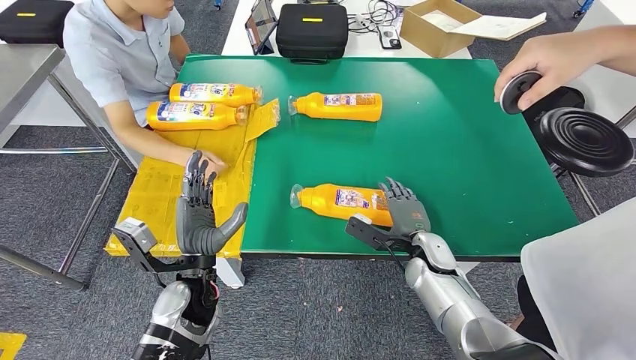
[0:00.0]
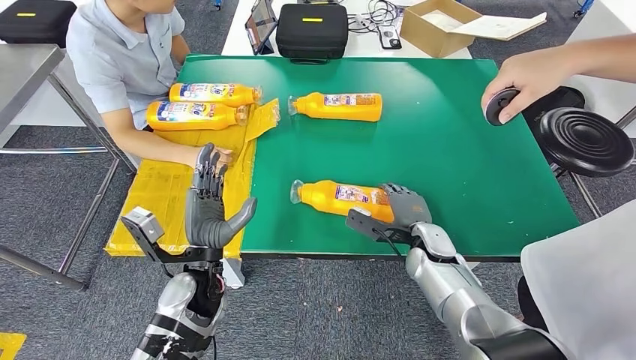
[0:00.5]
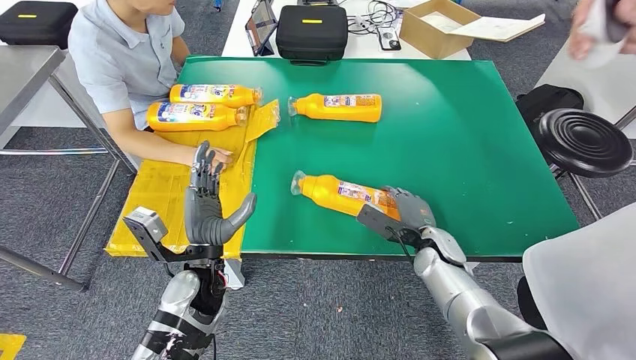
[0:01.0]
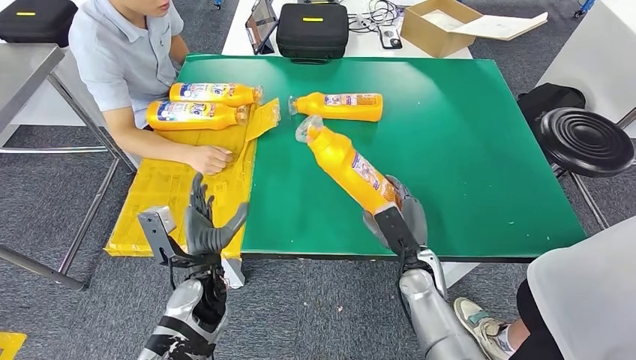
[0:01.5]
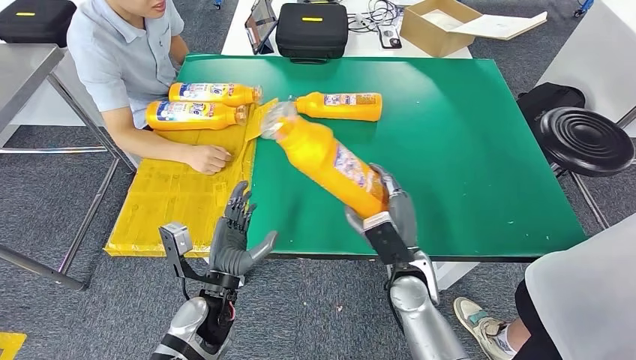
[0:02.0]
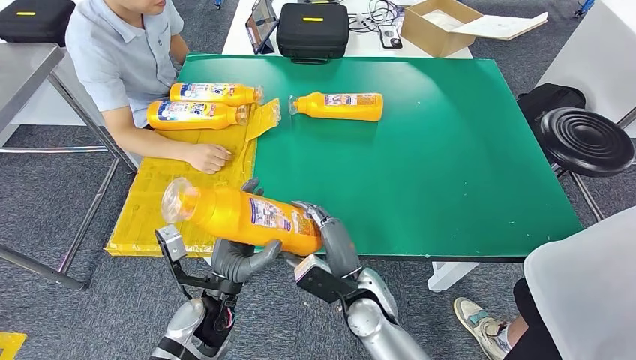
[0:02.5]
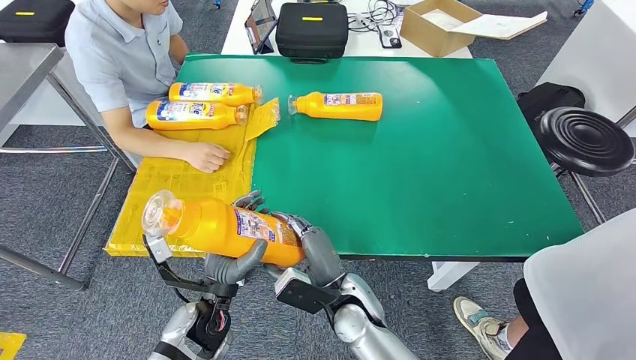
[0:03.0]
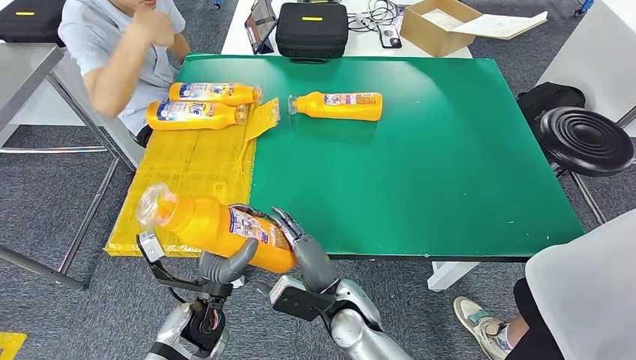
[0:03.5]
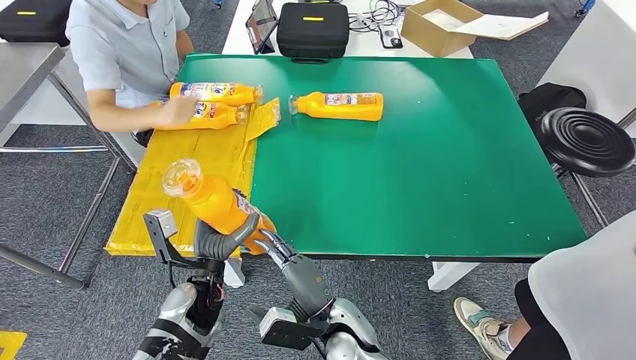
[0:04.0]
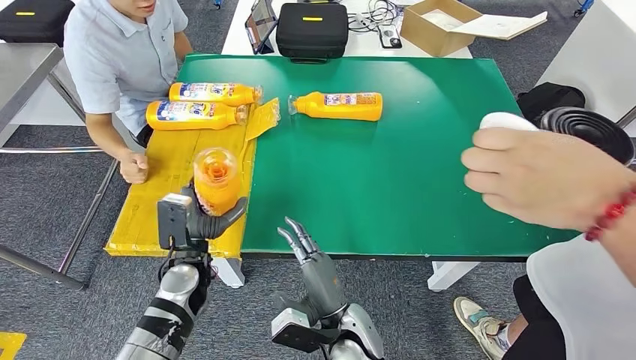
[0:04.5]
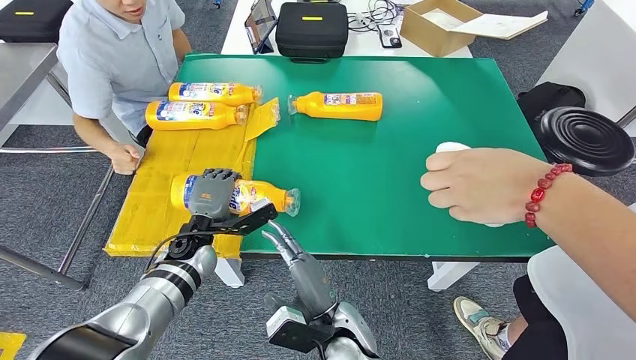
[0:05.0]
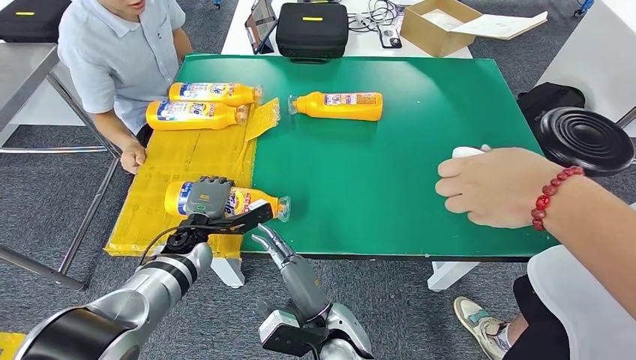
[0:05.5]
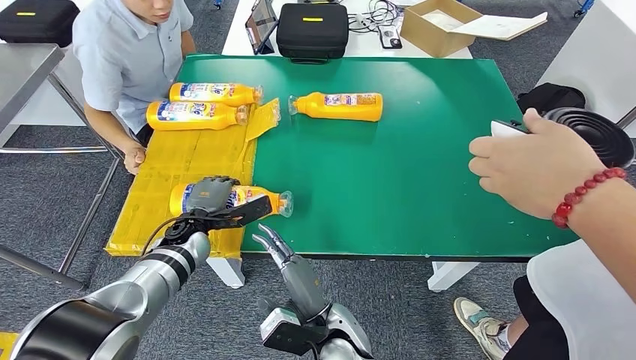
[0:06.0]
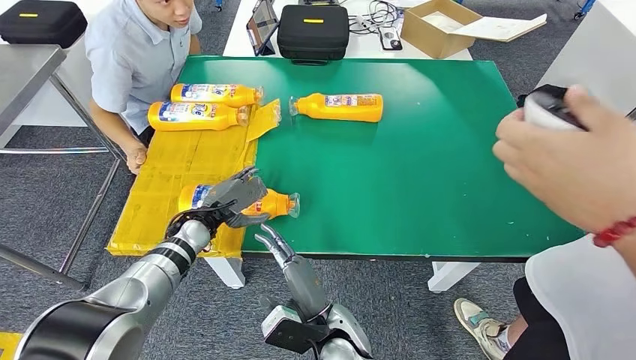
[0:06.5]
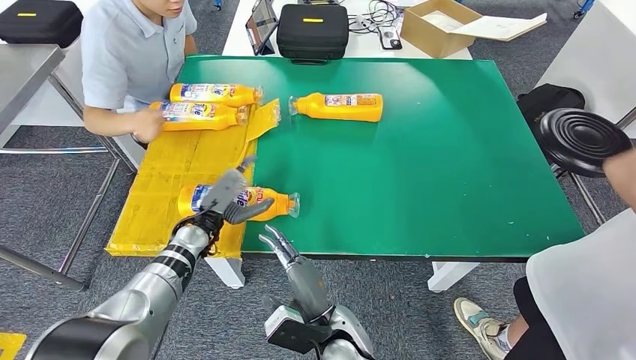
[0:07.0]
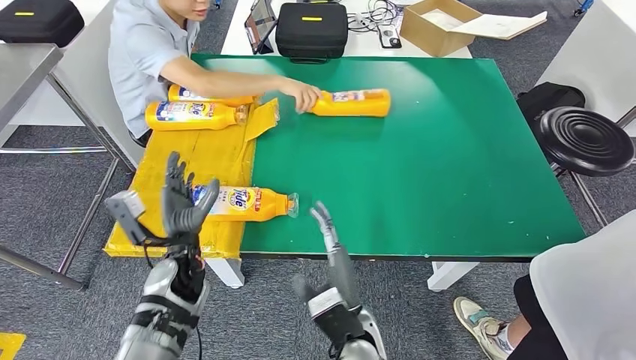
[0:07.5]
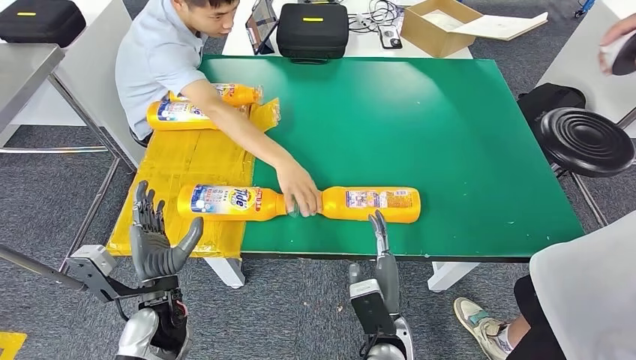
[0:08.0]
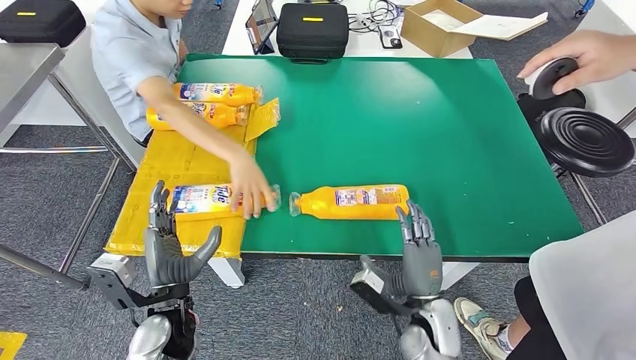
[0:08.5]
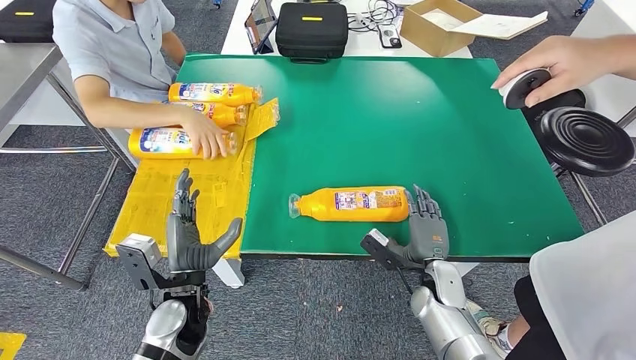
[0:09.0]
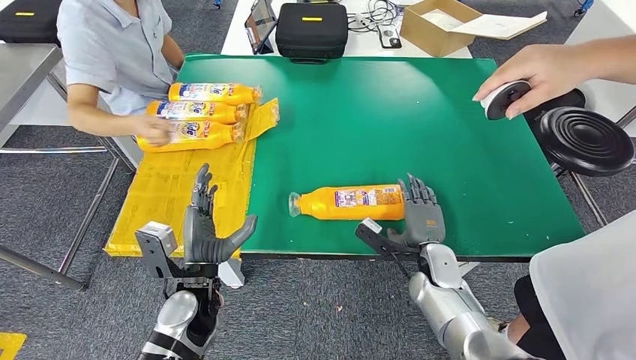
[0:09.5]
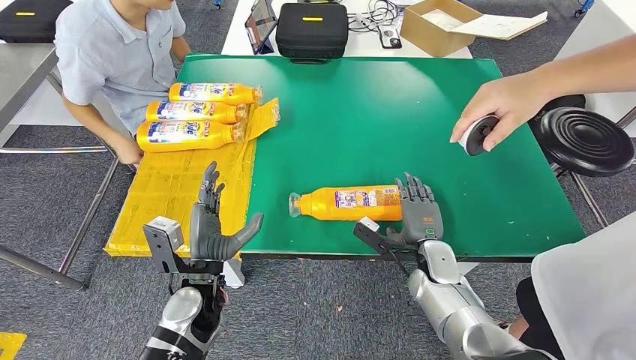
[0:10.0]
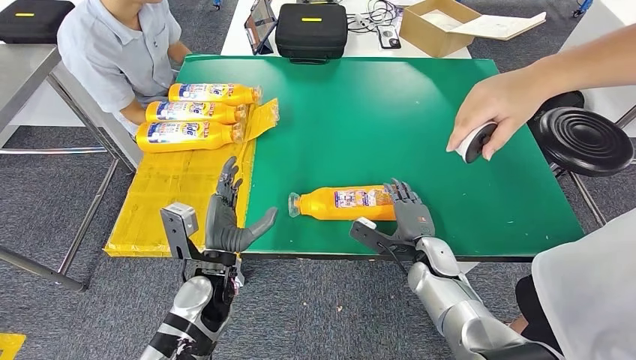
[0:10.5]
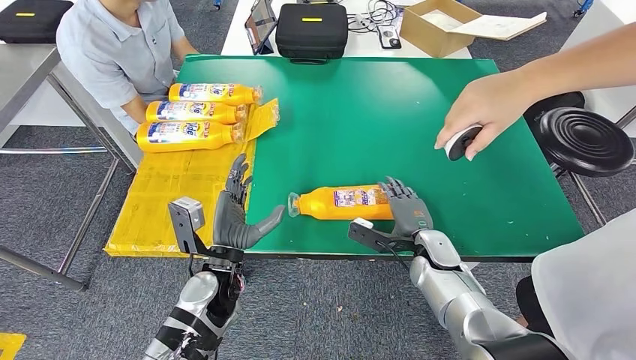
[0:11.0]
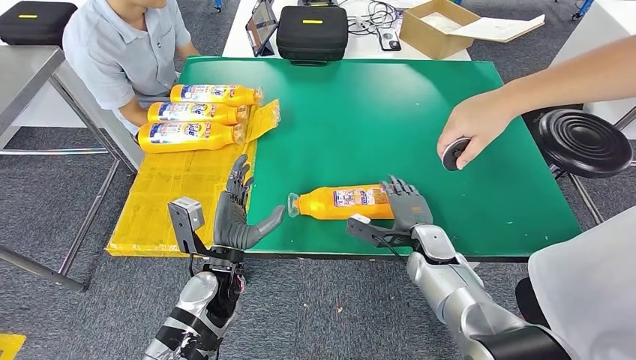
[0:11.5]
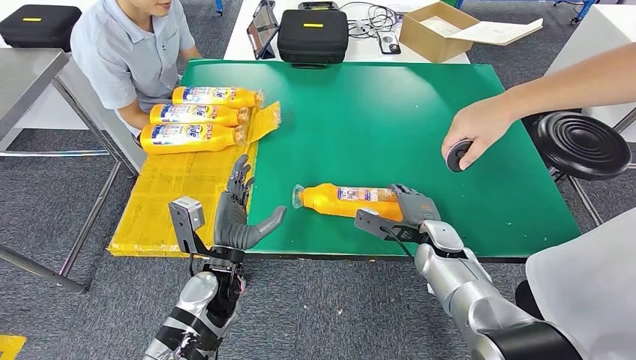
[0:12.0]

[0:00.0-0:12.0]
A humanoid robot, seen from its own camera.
Step, 0:00.0 to 0:02.0: Pick up the bottle from the table.
Step, 0:03.0 to 0:07.5: Flip the bottle to face forward.
0:00.0 to 0:02.0: The right hand moves to the left and backward, about 10 cm.
0:02.0 to 0:04.0: The right hand is displaced to the left and backward by some 15 cm.

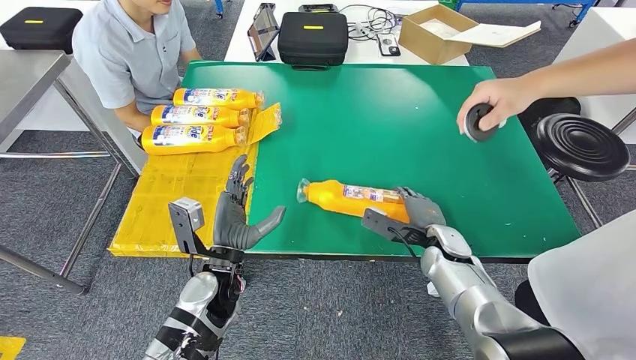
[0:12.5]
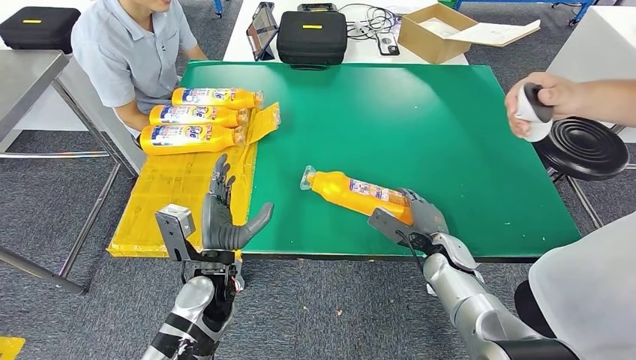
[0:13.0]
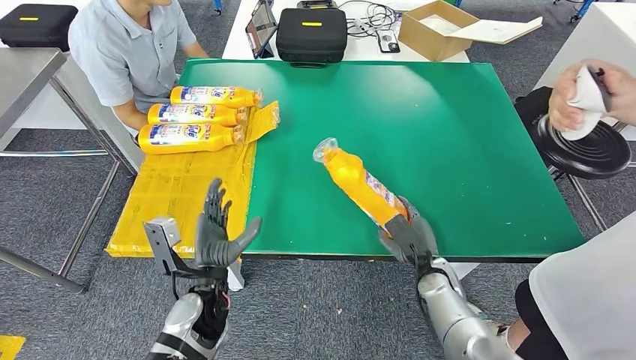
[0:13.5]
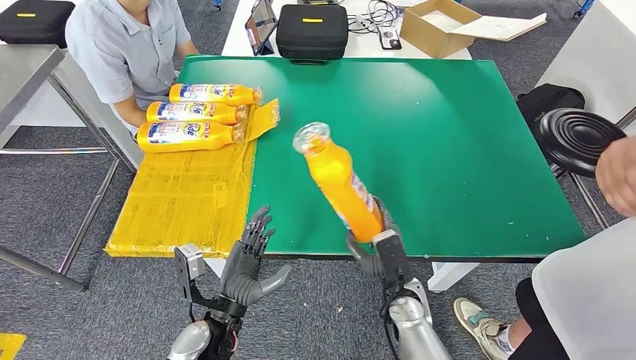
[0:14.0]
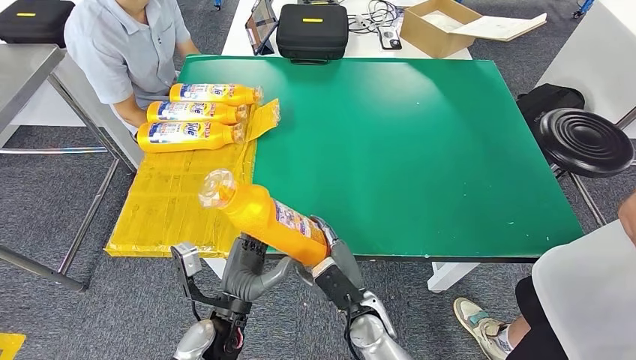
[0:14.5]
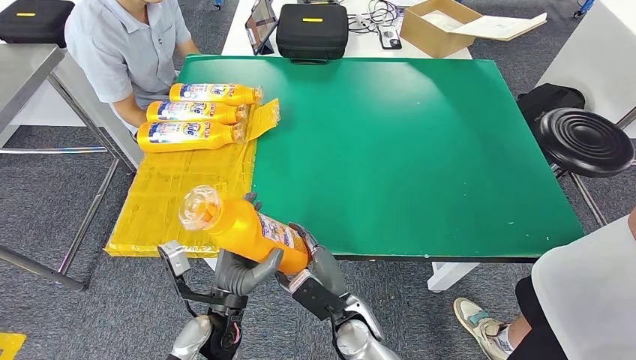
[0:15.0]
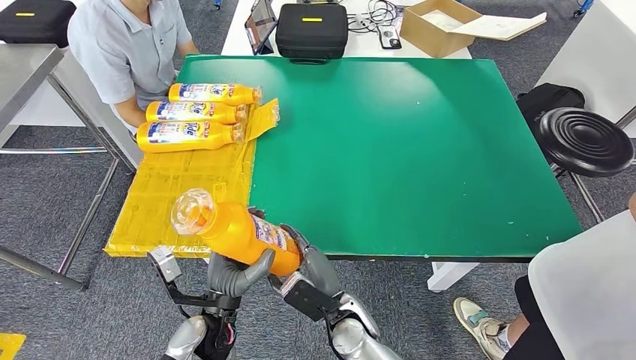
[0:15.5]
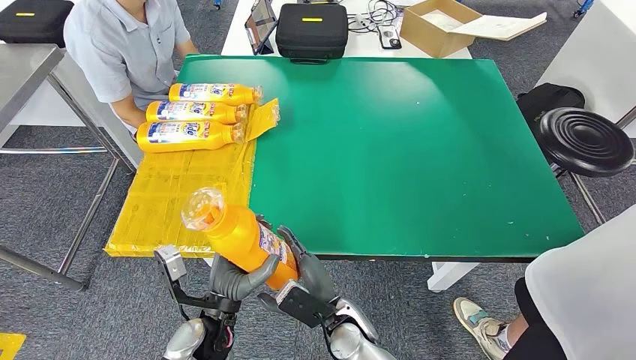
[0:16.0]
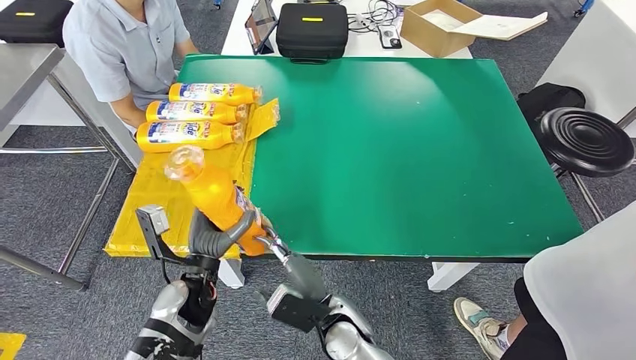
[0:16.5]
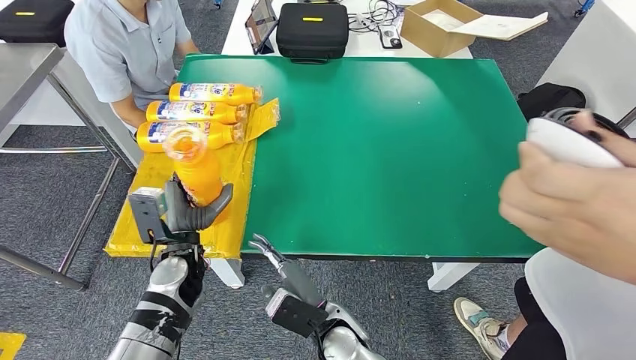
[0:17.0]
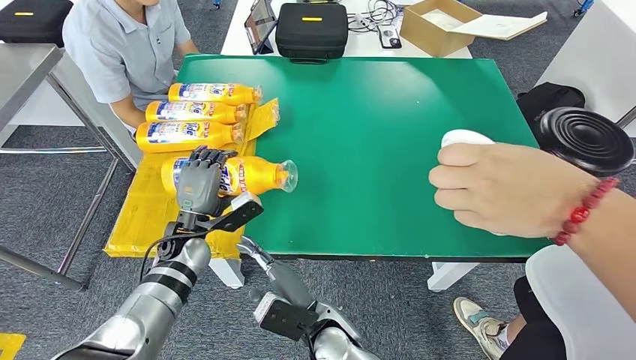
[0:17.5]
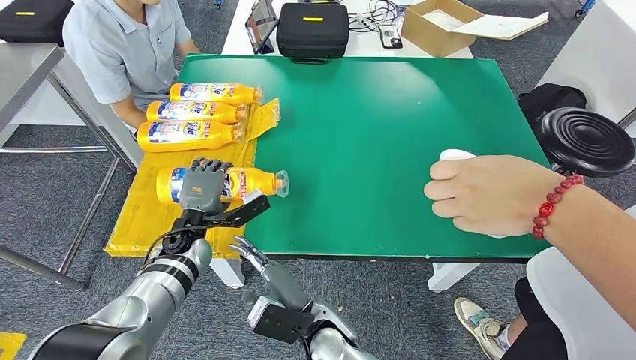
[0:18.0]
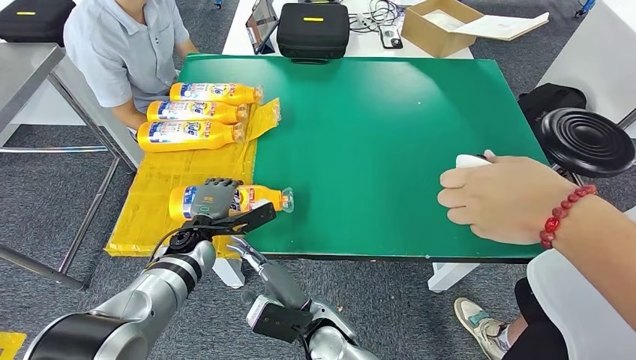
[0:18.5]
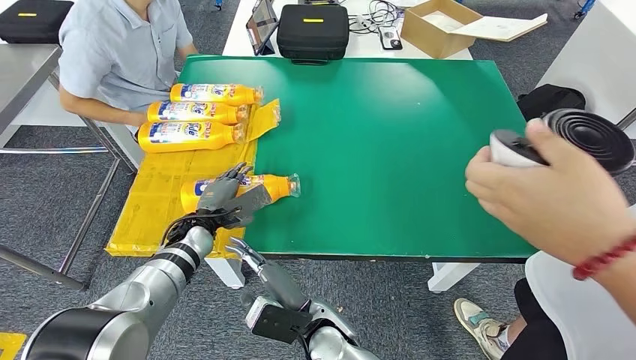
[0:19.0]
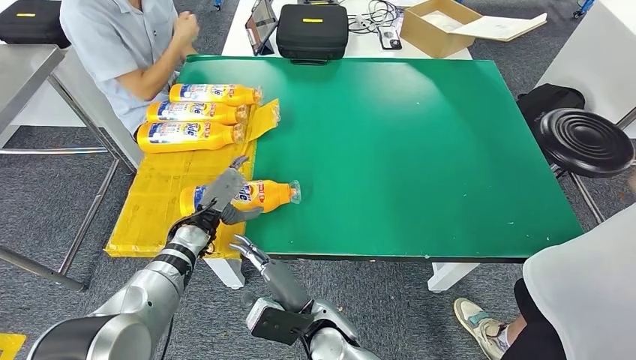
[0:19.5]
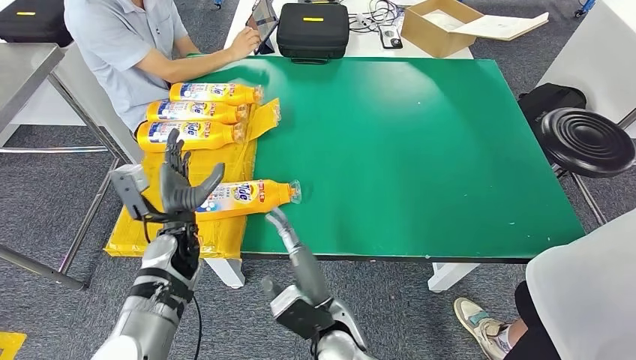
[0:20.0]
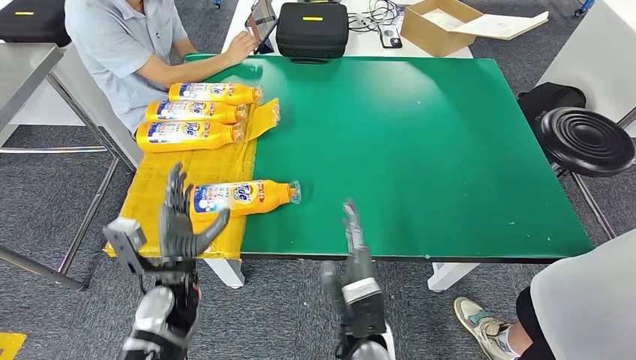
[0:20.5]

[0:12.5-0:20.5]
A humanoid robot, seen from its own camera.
Step, 0:15.0 to 0:20.5: Flip the bottle to face forward.
0:14.5 to 0:16.5: The left hand goes roughly 10 cm forward and to the left.
